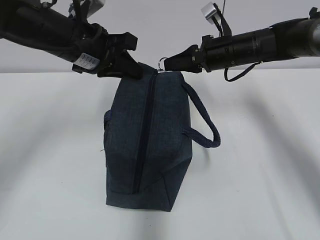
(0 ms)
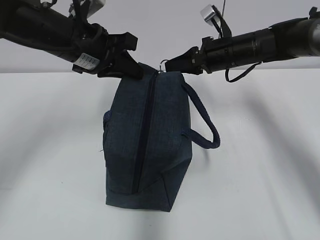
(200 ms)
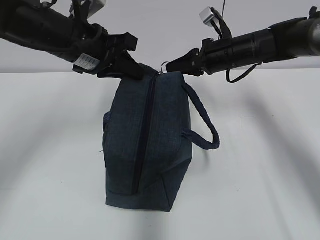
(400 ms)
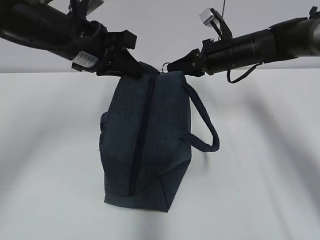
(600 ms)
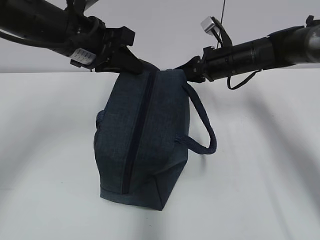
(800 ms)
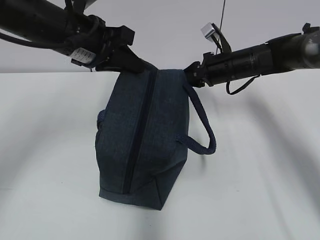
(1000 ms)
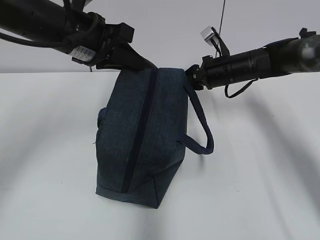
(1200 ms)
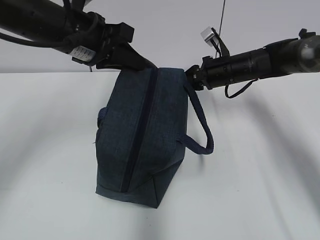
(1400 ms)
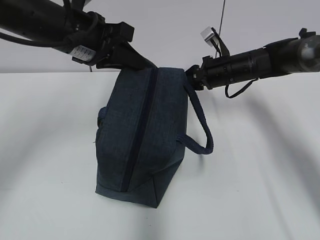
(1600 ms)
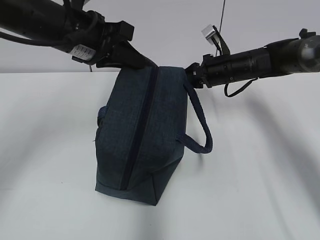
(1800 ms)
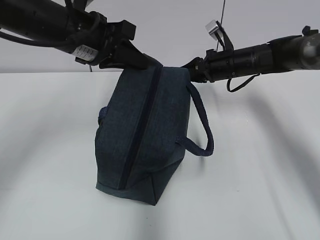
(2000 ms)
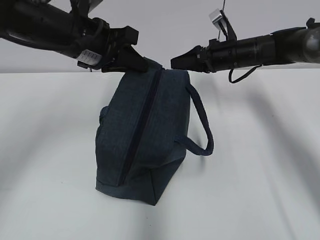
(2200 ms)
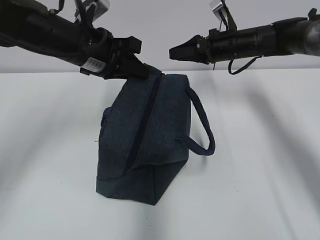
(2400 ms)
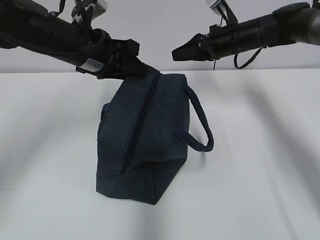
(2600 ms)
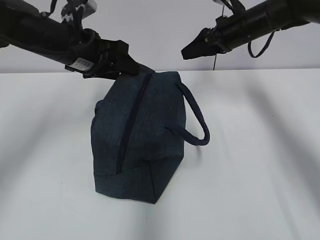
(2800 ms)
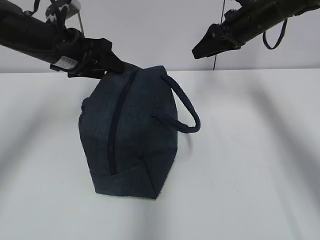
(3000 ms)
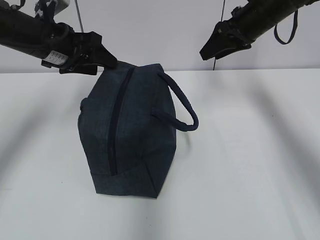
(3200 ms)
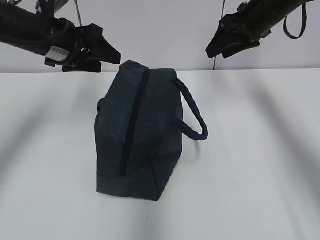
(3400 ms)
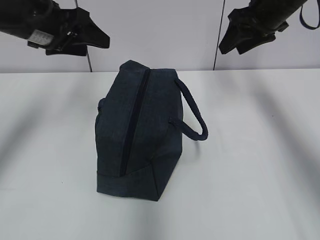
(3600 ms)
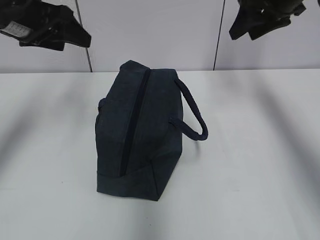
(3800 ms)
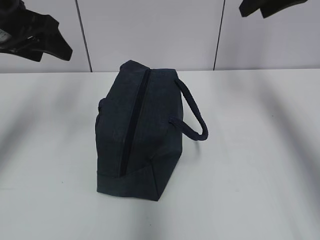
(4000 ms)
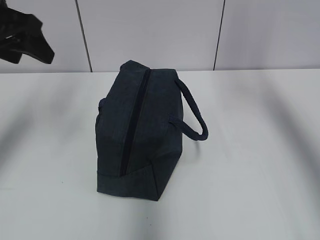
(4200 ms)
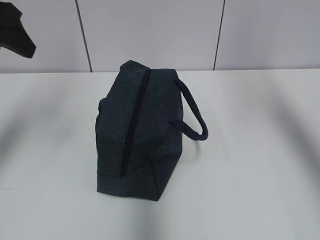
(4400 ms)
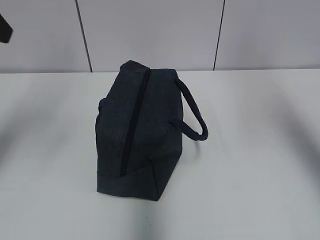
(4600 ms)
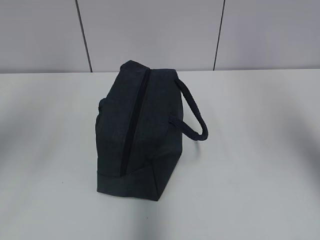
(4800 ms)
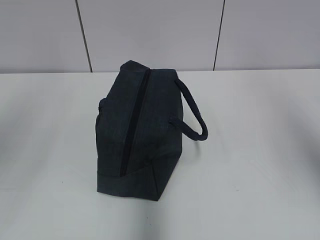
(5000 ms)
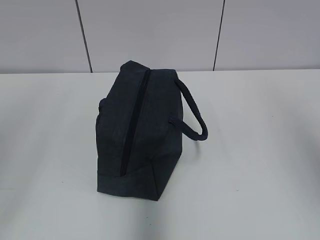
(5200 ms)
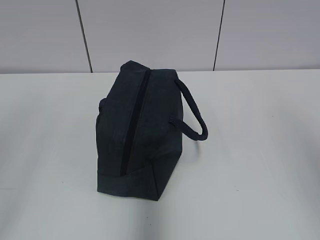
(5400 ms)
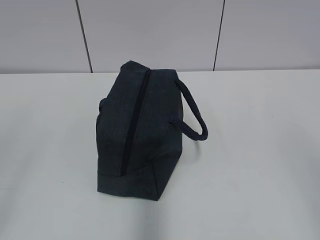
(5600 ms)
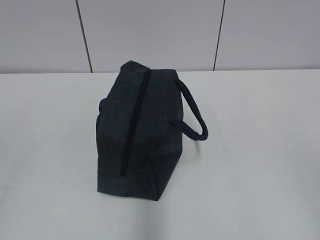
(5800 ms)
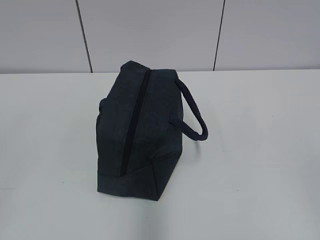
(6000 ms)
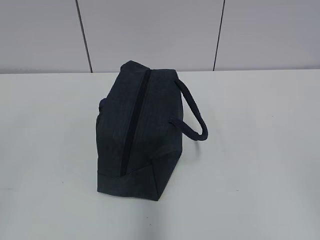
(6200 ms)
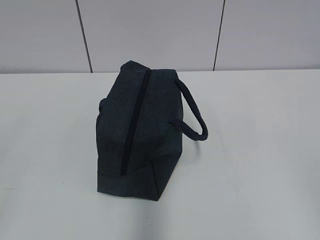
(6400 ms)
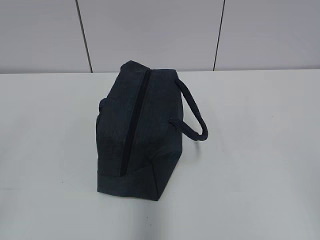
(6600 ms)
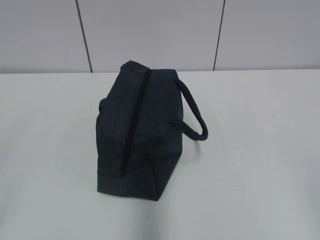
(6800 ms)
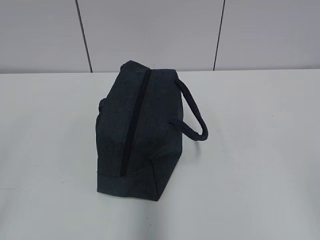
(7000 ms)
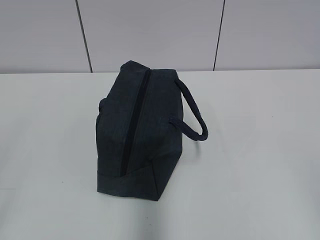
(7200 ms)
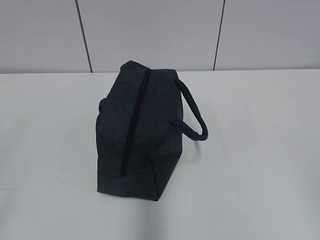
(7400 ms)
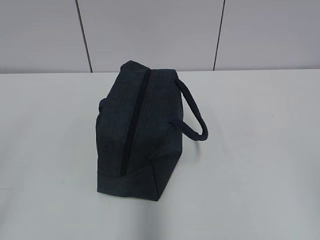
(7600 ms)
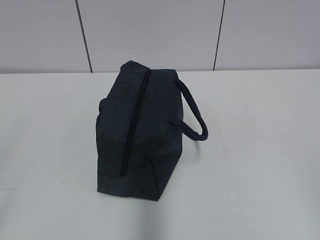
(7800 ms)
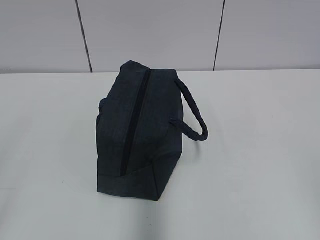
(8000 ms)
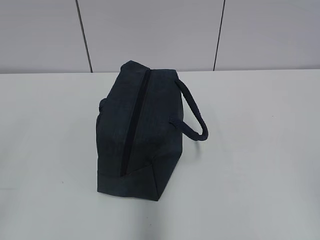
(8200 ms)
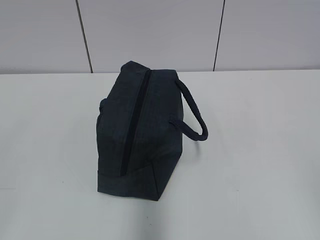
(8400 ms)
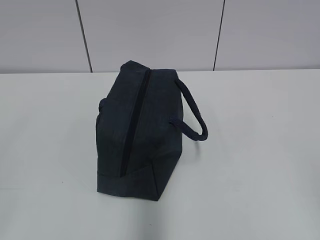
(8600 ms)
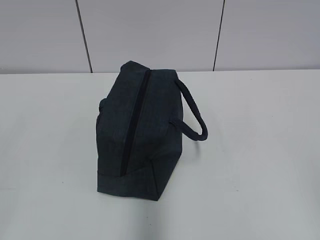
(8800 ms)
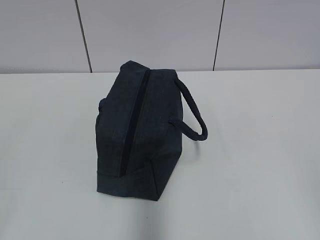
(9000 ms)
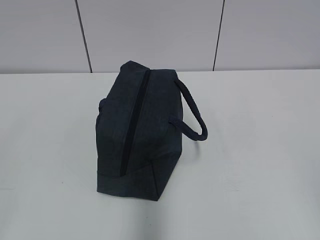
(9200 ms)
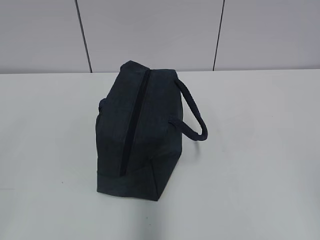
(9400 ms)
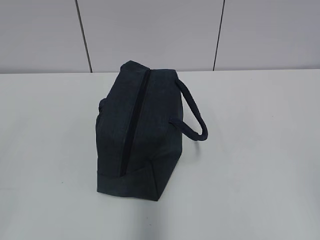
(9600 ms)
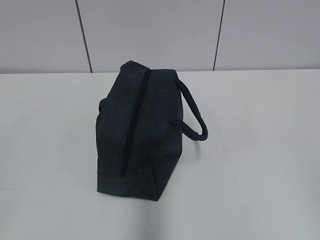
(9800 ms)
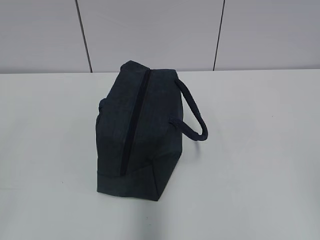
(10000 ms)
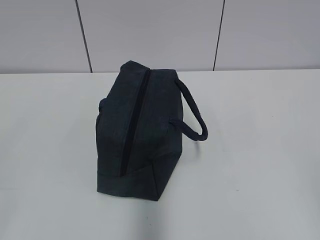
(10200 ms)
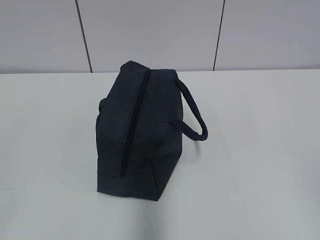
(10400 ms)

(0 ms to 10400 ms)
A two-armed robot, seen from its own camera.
Step, 2200 ms - 3000 ms: Grab the lunch bag with your left hand.
0 ms - 1400 ms: The right gripper ends up approximately 5 cm from where it was.
1400 ms - 3000 ms: The right gripper shifts some 10 cm upward, and opens its fingers. The left gripper ends up some 10 cm from where it was, and opens its fingers.
3000 ms - 4400 ms: The left gripper travels upward, backward and to the left by about 15 cm, while the right gripper goes approximately 25 cm upward and backward.
4400 ms - 6000 ms: The right gripper travels backward and downward by some 35 cm; the left gripper goes about 30 cm backward.
9000 ms - 10400 ms: Neither gripper changes place.

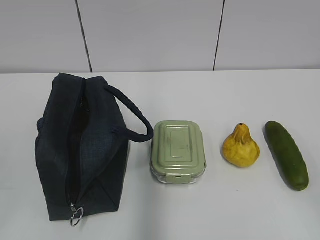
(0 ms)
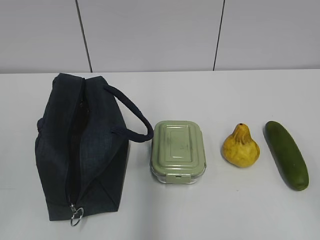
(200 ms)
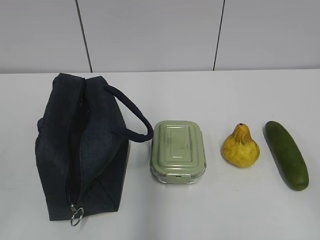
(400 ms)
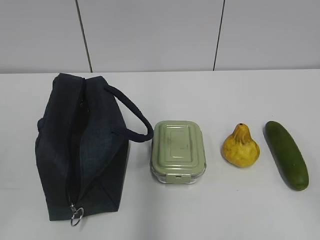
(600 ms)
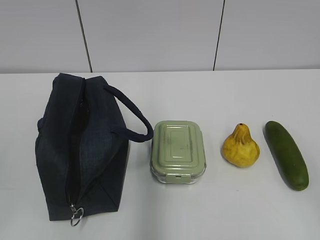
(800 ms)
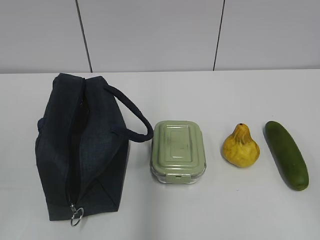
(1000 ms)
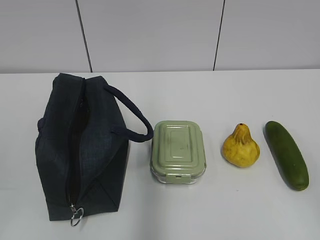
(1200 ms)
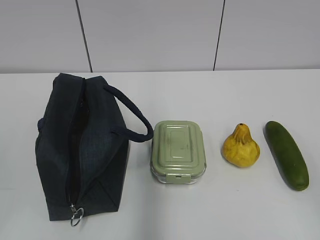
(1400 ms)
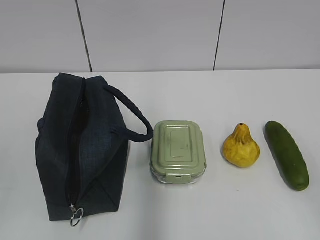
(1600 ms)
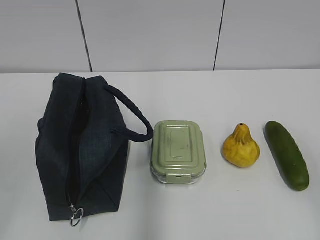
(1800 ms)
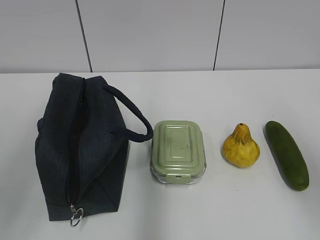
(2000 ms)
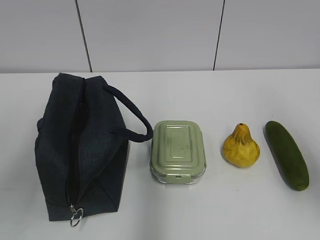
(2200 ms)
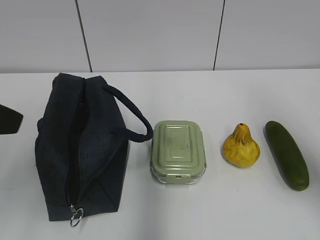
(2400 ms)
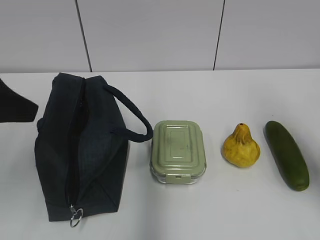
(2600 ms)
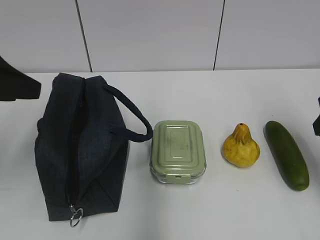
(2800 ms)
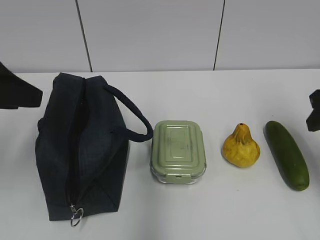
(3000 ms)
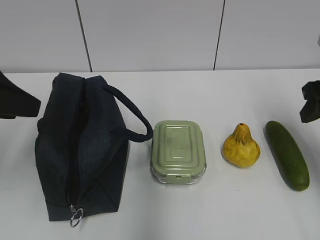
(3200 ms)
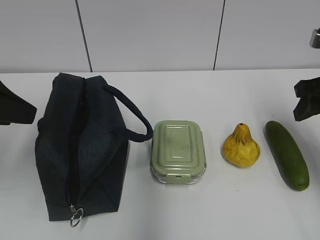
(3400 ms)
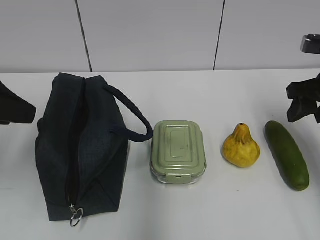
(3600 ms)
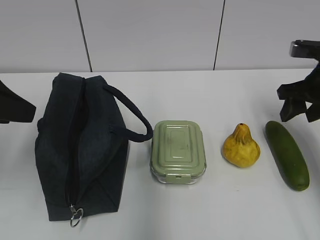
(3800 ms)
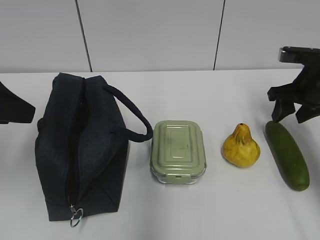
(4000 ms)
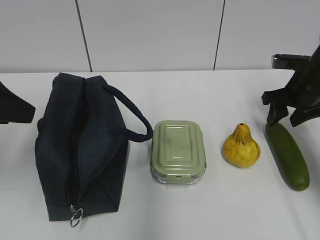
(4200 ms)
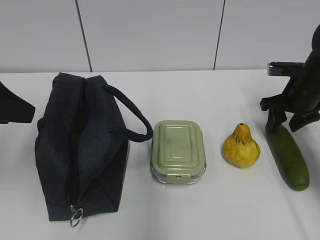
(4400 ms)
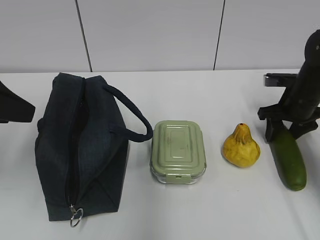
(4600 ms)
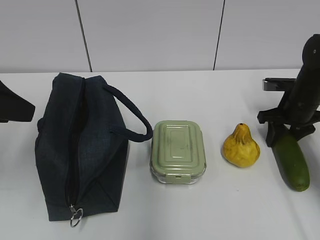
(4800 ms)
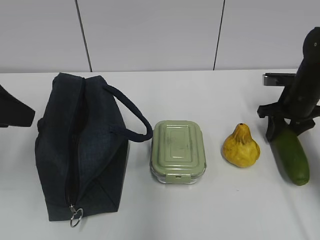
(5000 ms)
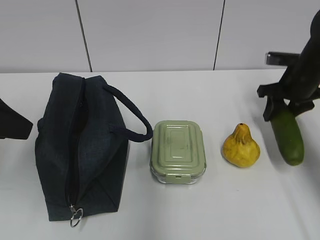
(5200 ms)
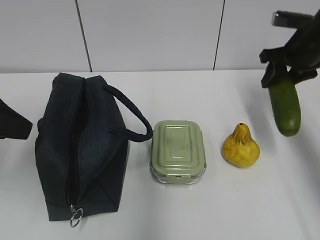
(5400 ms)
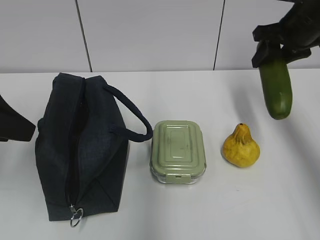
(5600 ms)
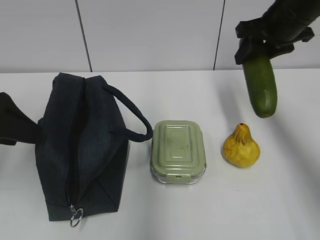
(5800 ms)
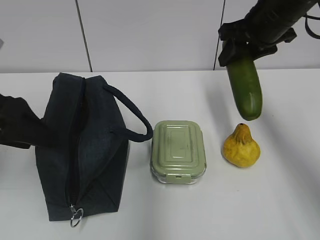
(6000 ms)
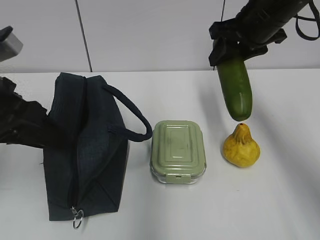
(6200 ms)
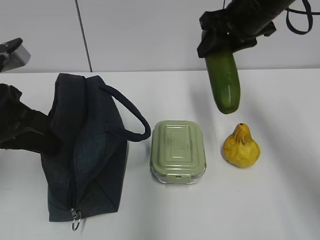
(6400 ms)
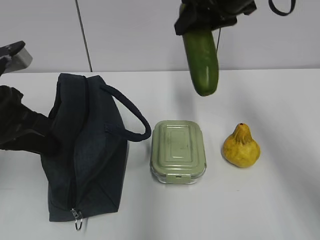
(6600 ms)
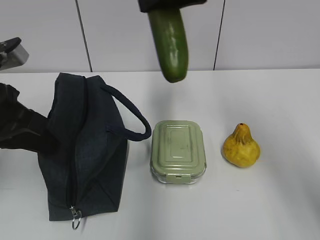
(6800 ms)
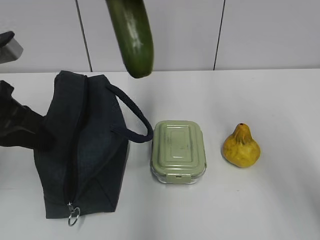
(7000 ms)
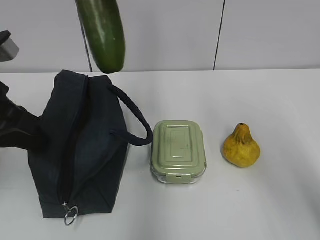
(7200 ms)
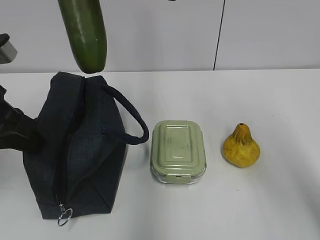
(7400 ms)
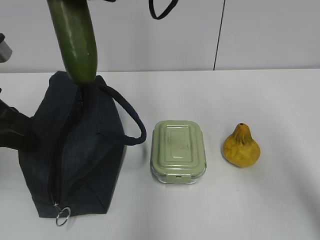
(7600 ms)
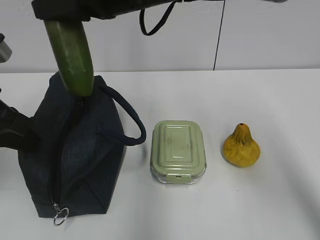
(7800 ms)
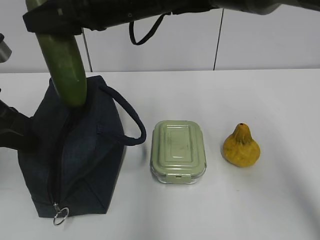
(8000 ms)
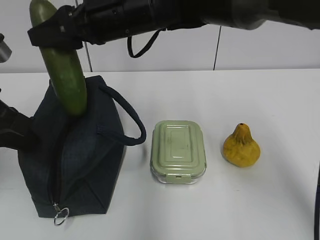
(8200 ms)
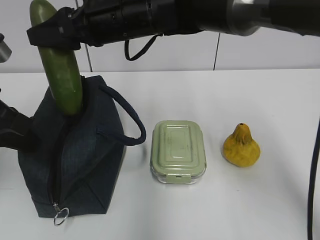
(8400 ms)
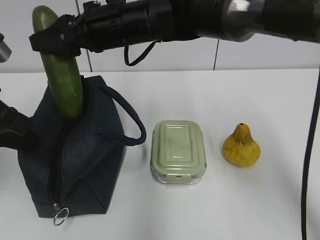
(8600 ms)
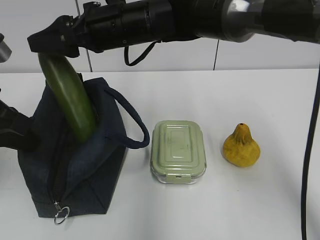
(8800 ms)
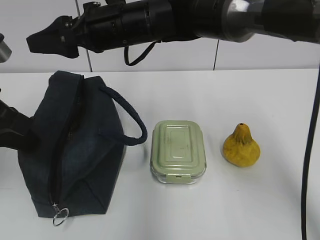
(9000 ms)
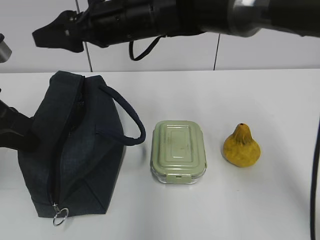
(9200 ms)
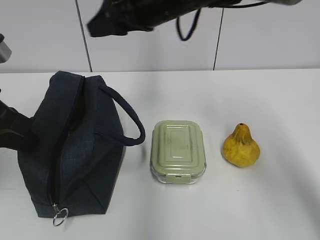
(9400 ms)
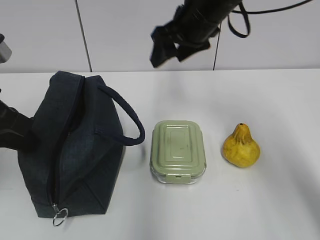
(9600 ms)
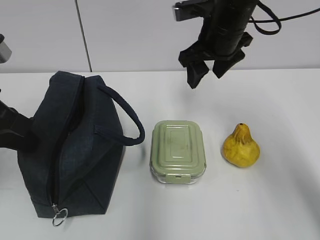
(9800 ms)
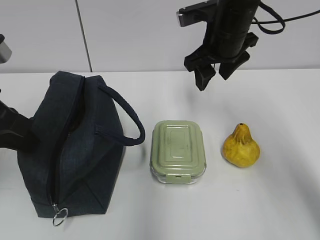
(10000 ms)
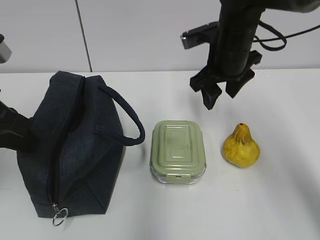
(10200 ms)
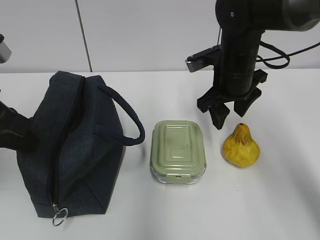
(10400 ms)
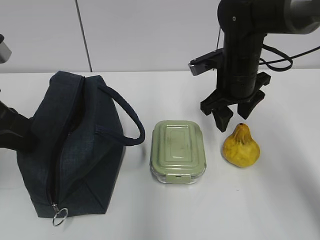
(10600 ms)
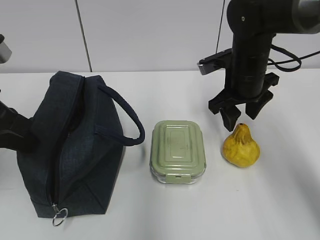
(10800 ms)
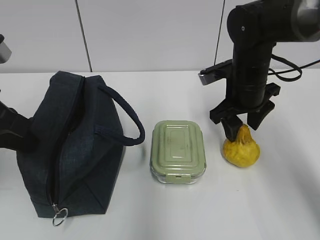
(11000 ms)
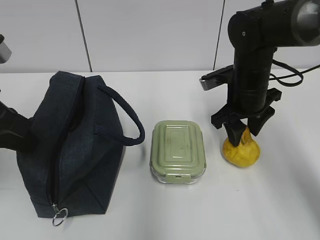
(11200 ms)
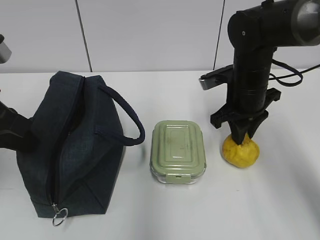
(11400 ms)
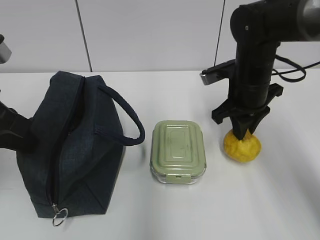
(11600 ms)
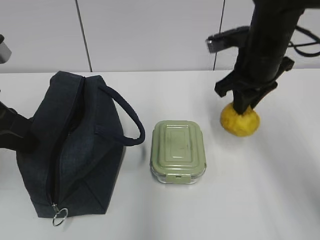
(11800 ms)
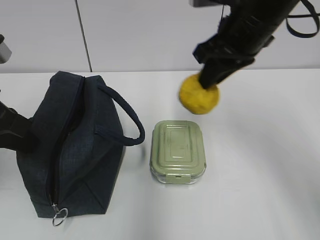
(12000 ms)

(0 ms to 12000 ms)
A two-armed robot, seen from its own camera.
Step, 0 ms - 4800 ms: Grab the cucumber with your right hand.
Step, 5000 ms - 8600 ms: Grab the lunch bag with your left hand.
Step, 9000 ms - 11400 ms: Grab the pear with your right hand.
1600 ms - 3000 ms: The two grippers go roughly 25 cm forward.
3000 ms - 4400 ms: The right gripper travels forward and downward by roughly 20 cm.
4400 ms - 6000 ms: The right gripper goes approximately 20 cm upward and to the left.
6000 ms - 7600 ms: The left gripper closes its fingers. Meanwhile the right gripper moves to the left, roughly 20 cm.
7600 ms - 9000 ms: The right gripper travels downward by approximately 10 cm, and opens up.
9000 ms - 10400 ms: The right gripper shifts about 20 cm to the right and downward.
10400 ms - 12000 ms: The right gripper is displaced upward and backward by about 10 cm, and closes.
